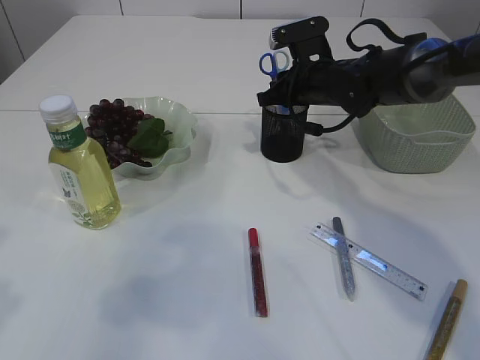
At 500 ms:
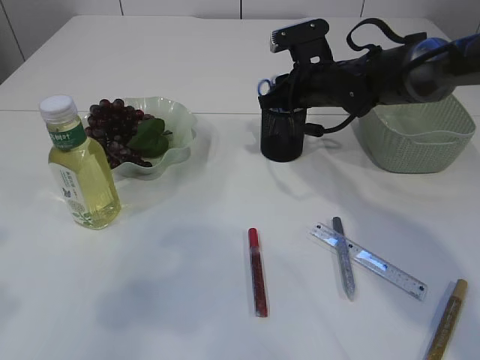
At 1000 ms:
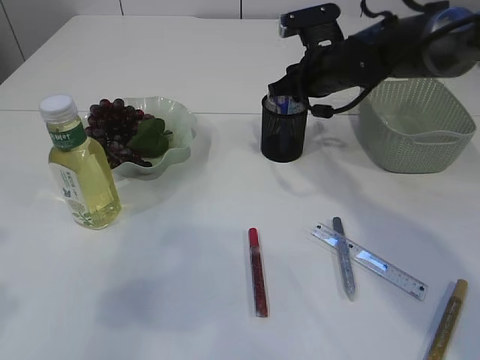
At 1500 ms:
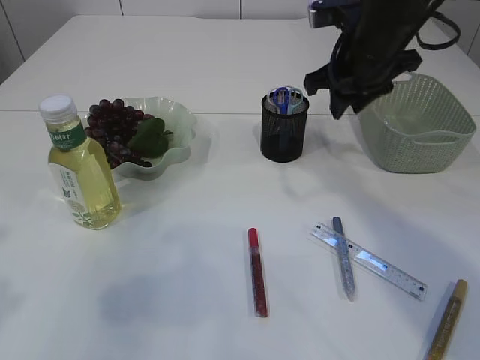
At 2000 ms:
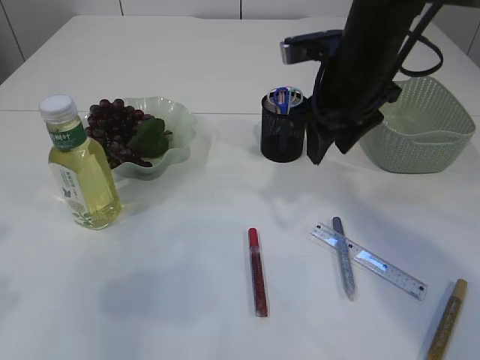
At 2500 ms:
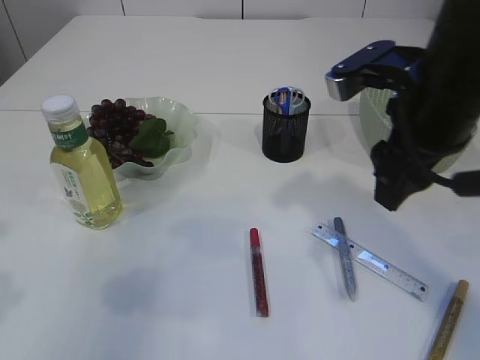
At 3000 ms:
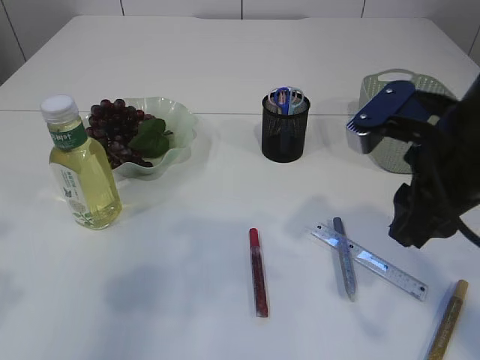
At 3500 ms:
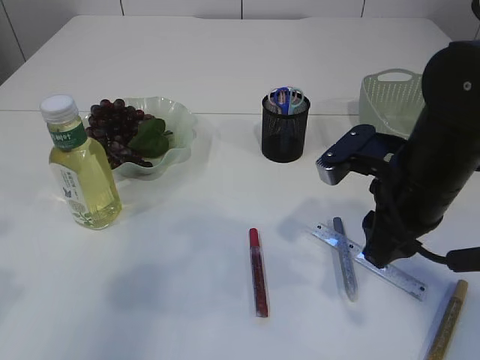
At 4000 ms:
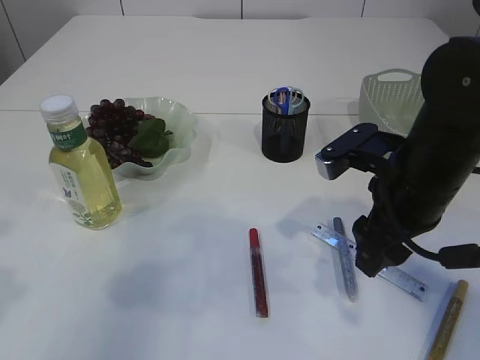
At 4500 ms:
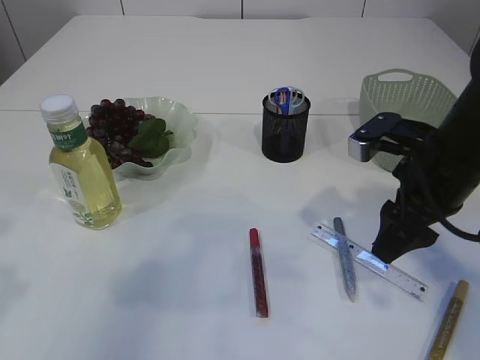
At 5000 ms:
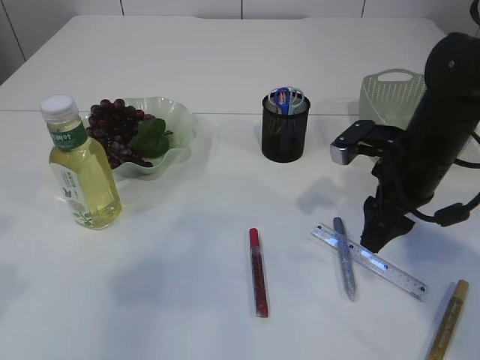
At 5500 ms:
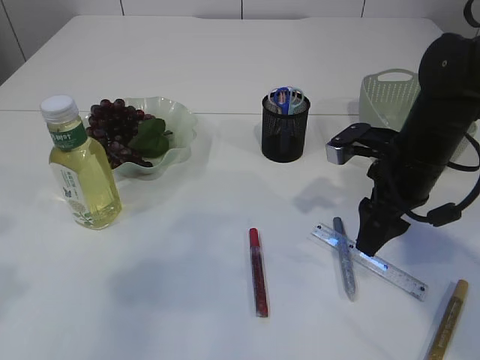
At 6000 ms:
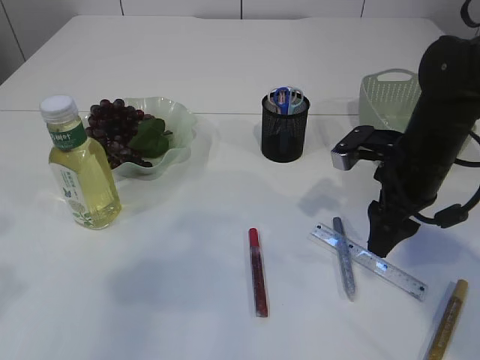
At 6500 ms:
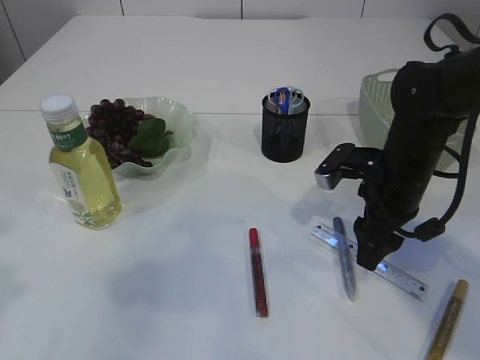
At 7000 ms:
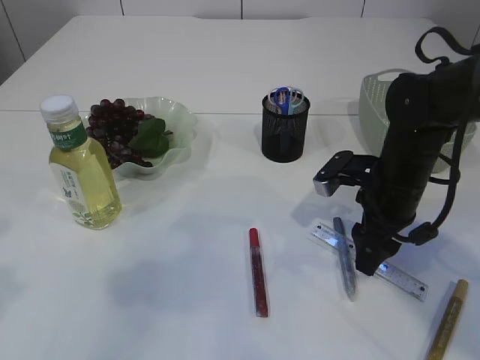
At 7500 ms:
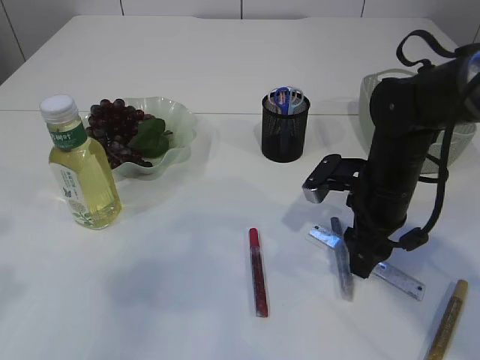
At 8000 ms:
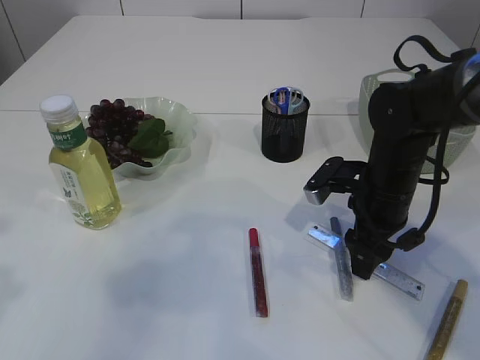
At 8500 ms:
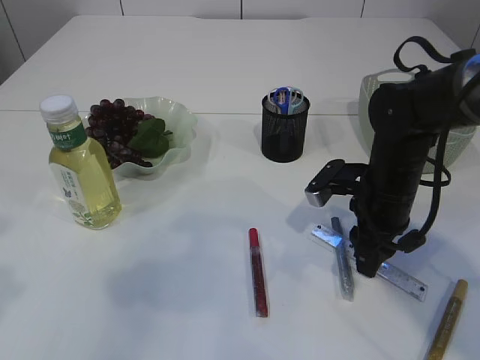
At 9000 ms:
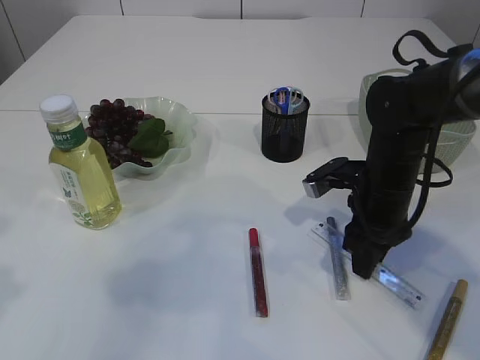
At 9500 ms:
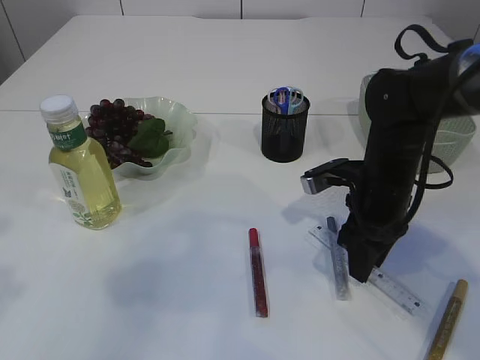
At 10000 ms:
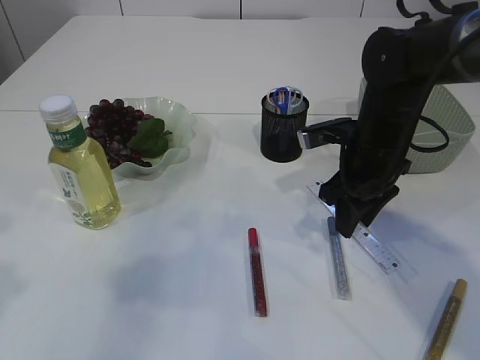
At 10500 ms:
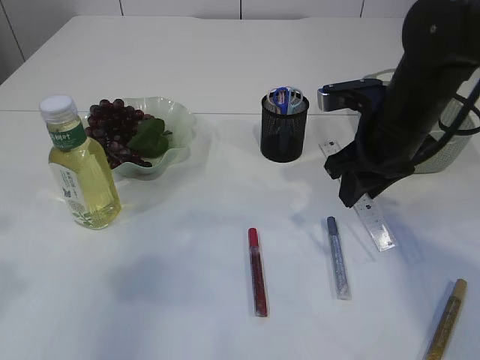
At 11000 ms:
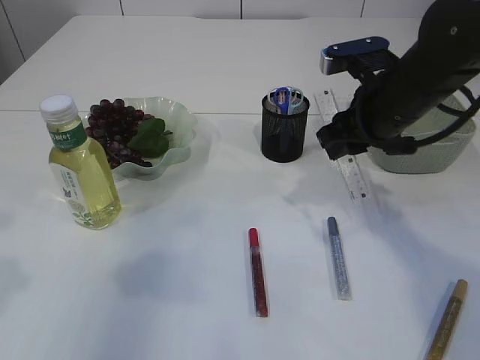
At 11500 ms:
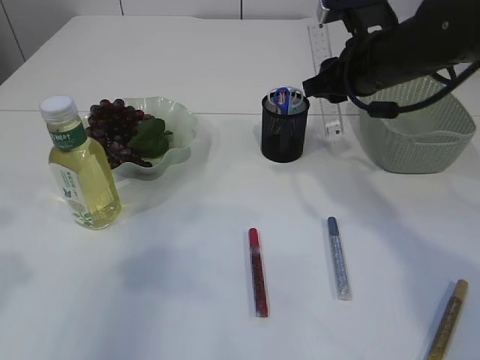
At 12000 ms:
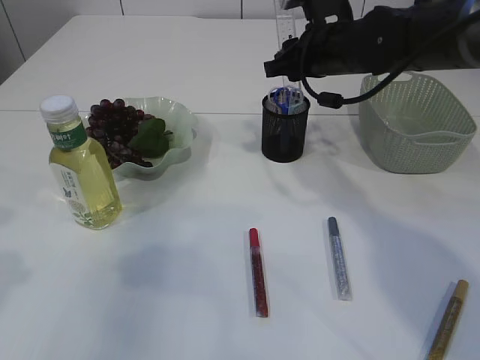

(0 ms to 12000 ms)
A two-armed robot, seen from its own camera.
Step, 2000 ms - 10000 ms: pick up the ruler.
0 ms - 2000 ms: The right gripper goes some 10 cm backward and upward, and opens.
2000 ms - 4000 ms: The right gripper travels backward and downward by roughly 15 cm.
4000 ms - 6000 ms: The right gripper is displaced forward by approximately 5 cm.
6000 ms - 8000 ms: The right gripper moves some 5 cm.
8000 ms - 10000 ms: The right gripper moves roughly 5 cm, and closes up.
10000 ms - 12000 ms: The right gripper travels upward and forward by some 10 cm.

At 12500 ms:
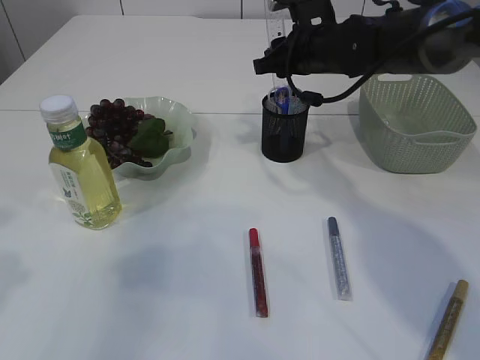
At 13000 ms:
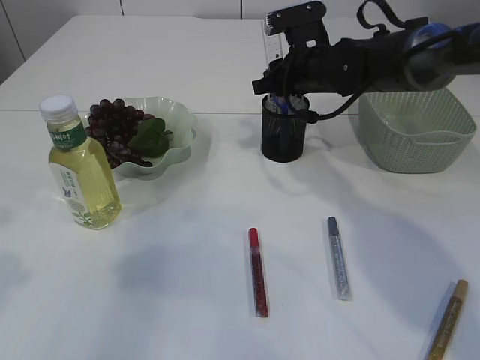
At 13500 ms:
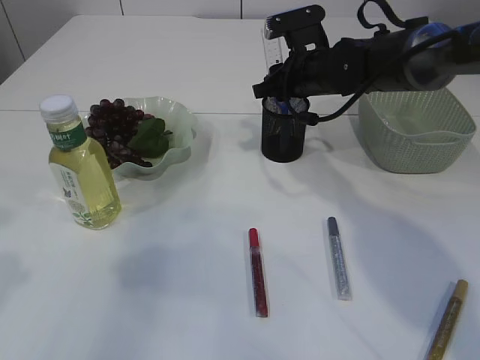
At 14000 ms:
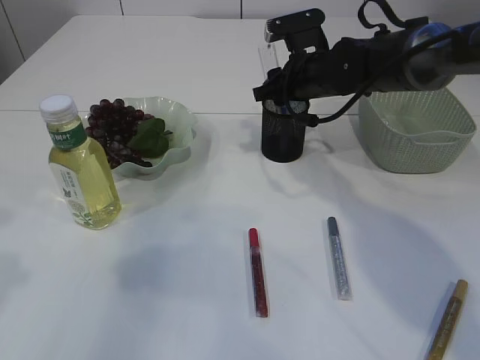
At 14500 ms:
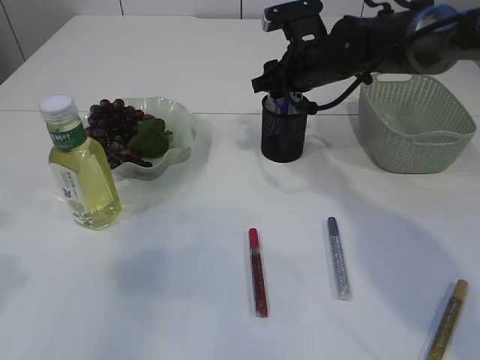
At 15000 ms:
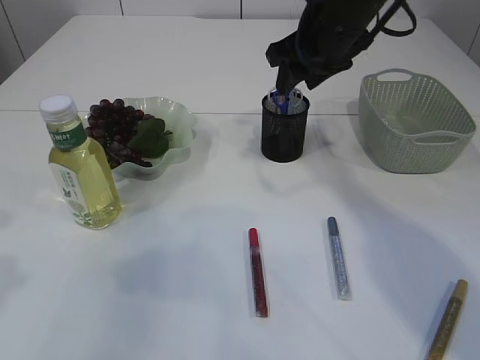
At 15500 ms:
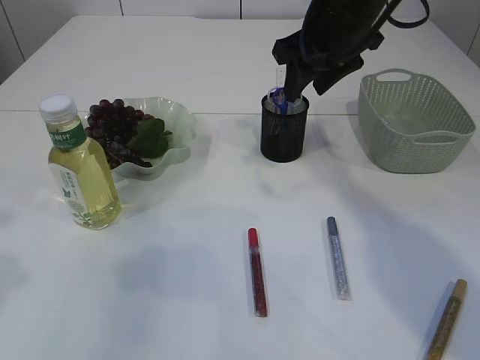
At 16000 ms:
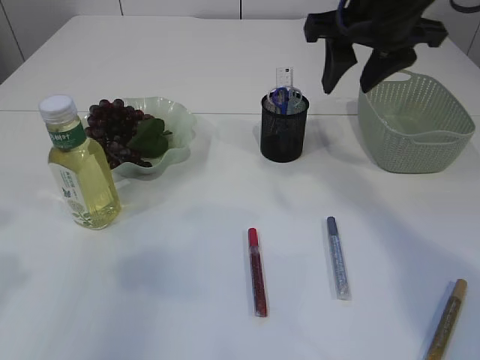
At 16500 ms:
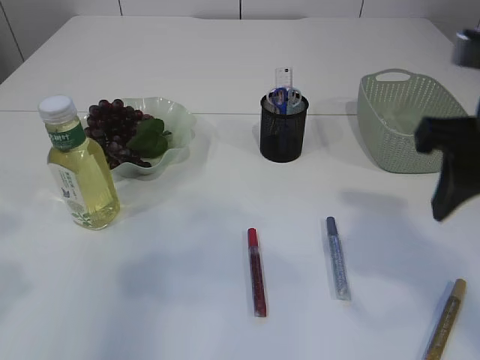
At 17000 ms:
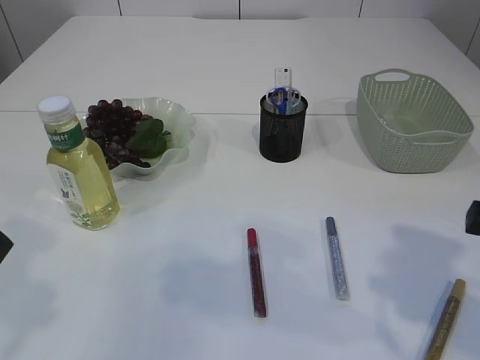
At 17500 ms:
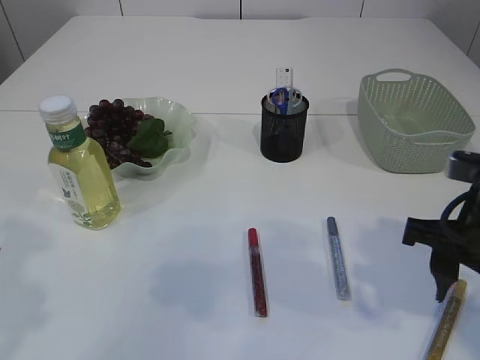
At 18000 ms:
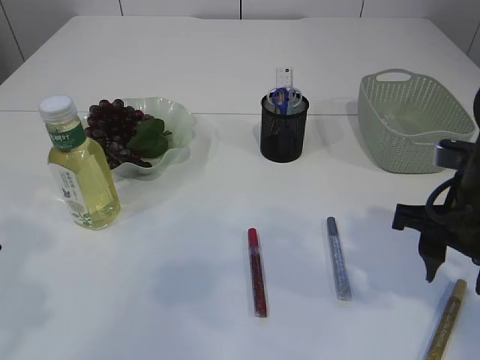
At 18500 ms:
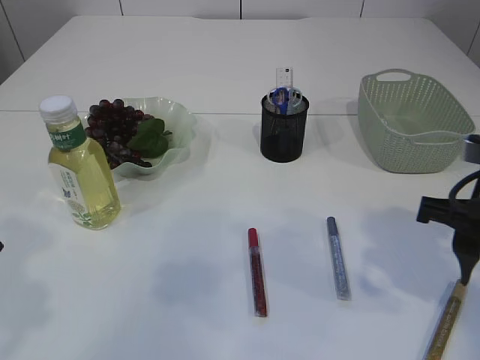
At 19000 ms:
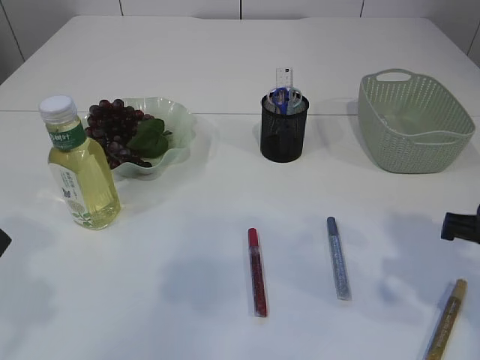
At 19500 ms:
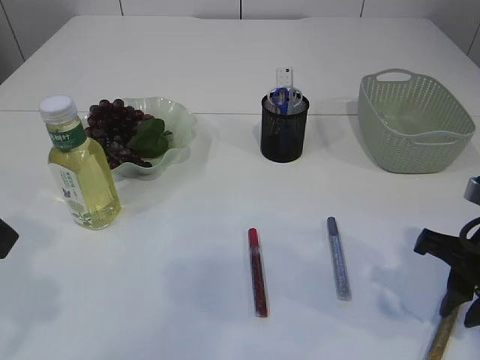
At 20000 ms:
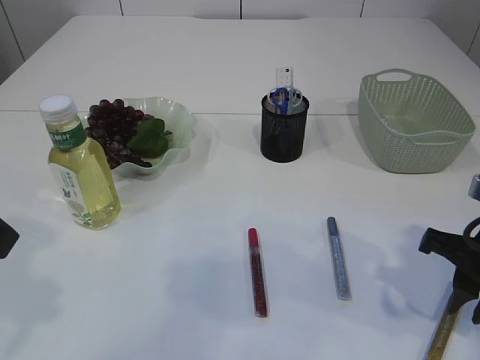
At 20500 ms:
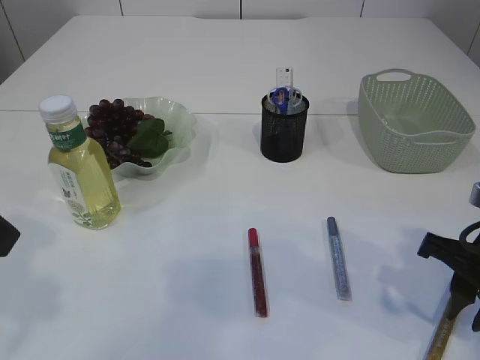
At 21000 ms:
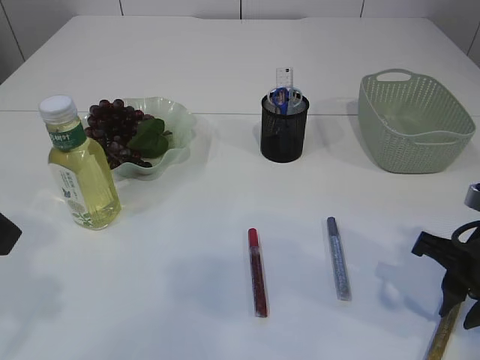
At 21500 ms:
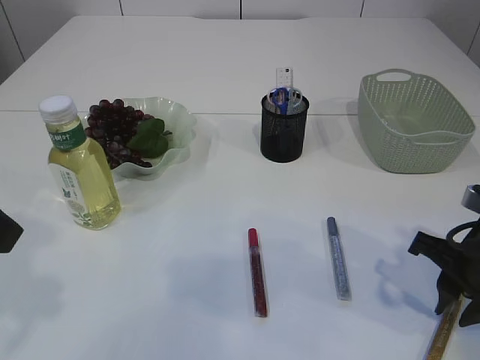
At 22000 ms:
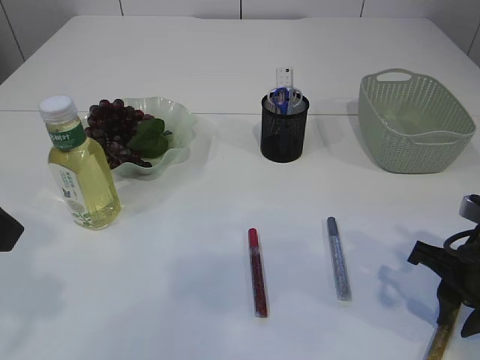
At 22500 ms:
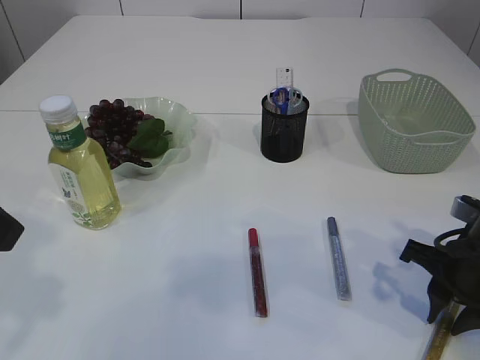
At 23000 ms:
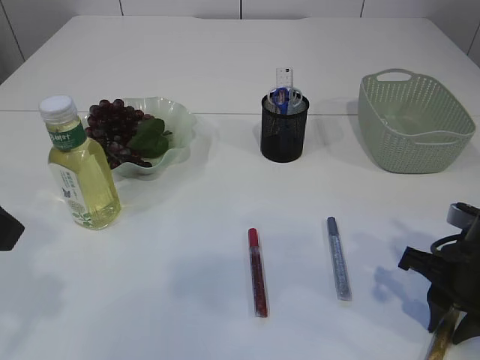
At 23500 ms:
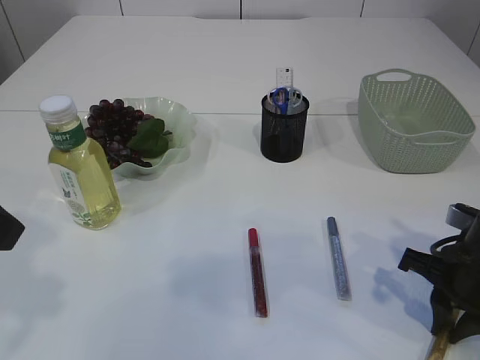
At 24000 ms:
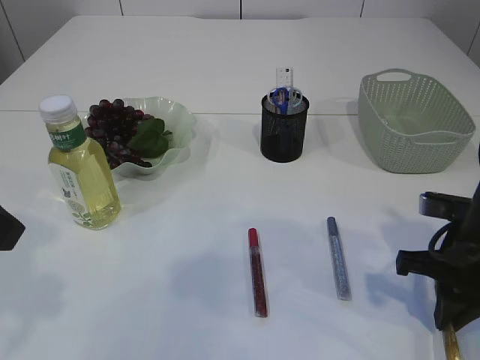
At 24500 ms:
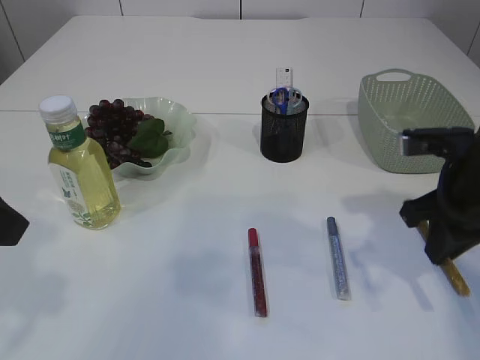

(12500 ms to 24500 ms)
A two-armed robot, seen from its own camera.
Step, 12500 ms - 15000 ms: Place the ruler into the pen holder.
Step, 15500 ms - 24000 ms: pick up the yellow glue.
12500 ms - 14500 ms: The grippers move only a little.
14500 ms - 16500 ms: The right gripper heads backward and upward, covering roughly 25 cm.
16500 ms - 18500 ms: The right gripper is displaced downward by approximately 10 cm.
18500 ms - 20500 ms: The right gripper shifts roughly 5 cm downward.
20500 ms - 22500 ms: The grippers move only a little.
22500 ms - 24500 ms: The right gripper shifts about 5 cm upward.

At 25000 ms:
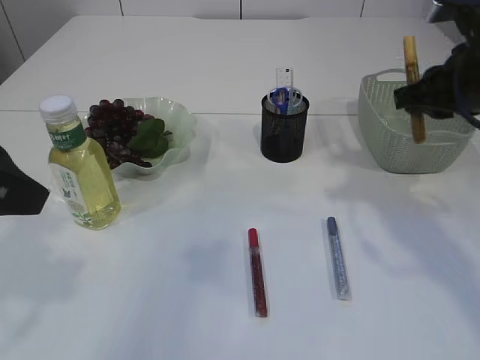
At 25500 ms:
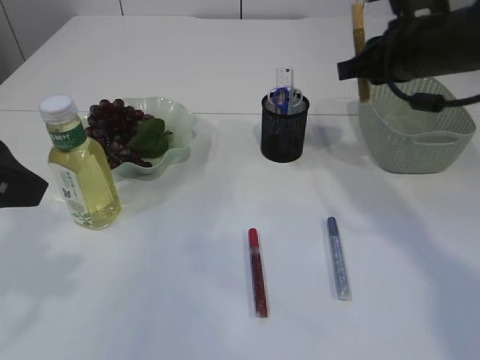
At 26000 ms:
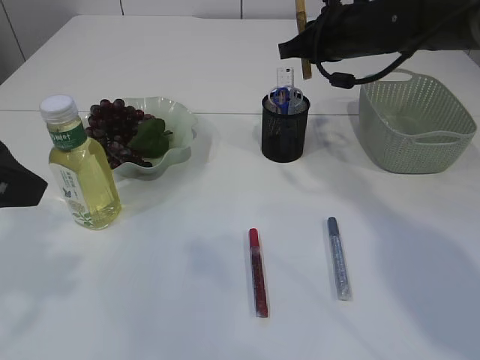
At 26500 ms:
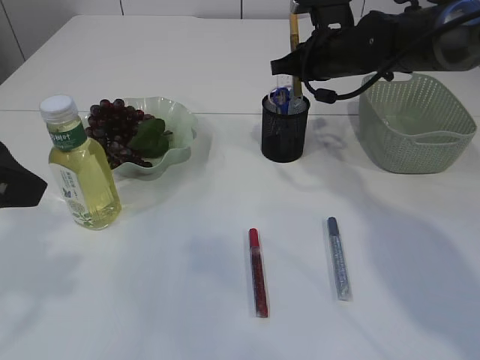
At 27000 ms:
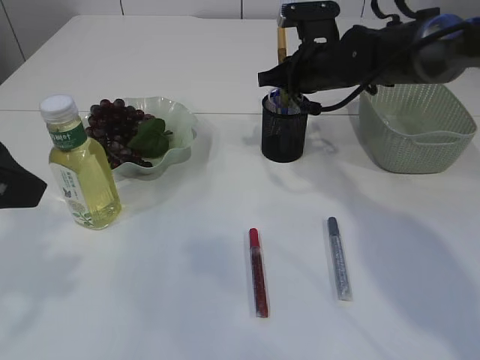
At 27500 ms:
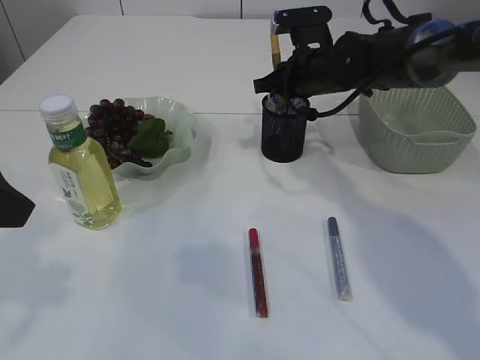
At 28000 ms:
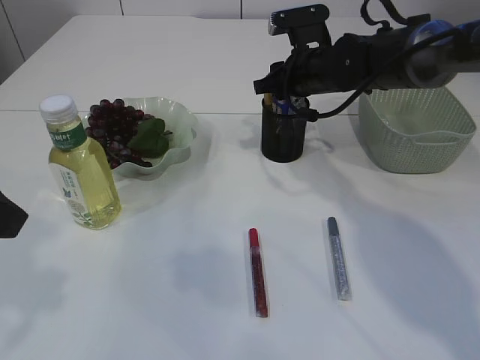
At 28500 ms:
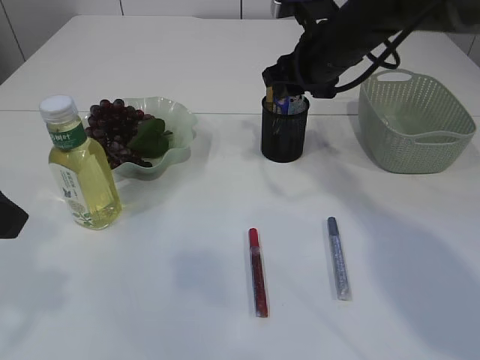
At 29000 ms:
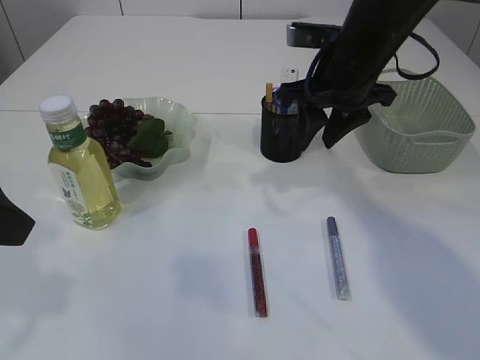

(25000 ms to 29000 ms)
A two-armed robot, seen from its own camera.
Step, 25000 ms - 28500 ms: place the yellow glue into the pen holder.
25000 ms - 27000 ms: The right gripper heads forward and to the left, covering roughly 20 cm.
27000 ms - 29000 ms: The right gripper heads backward and upward, covering approximately 10 cm, and opens its fingers.
